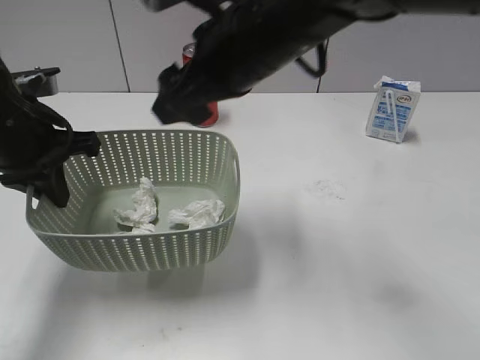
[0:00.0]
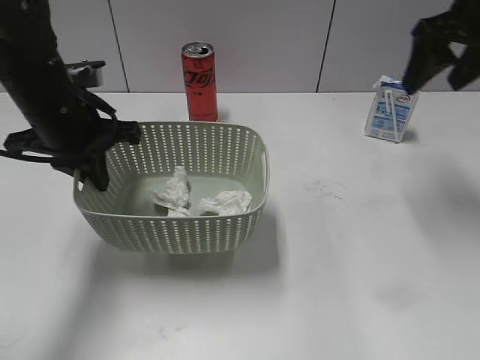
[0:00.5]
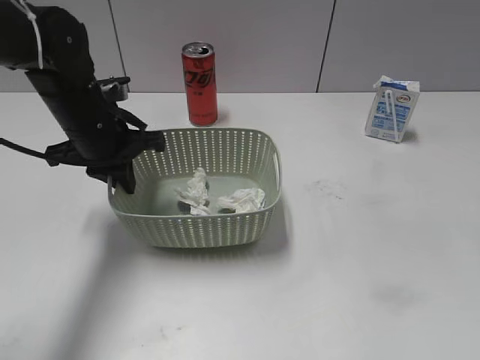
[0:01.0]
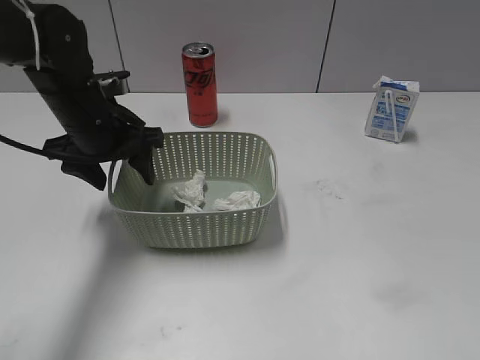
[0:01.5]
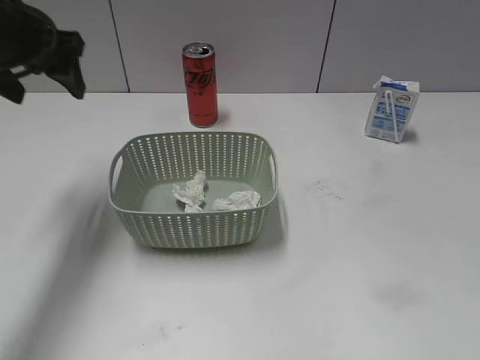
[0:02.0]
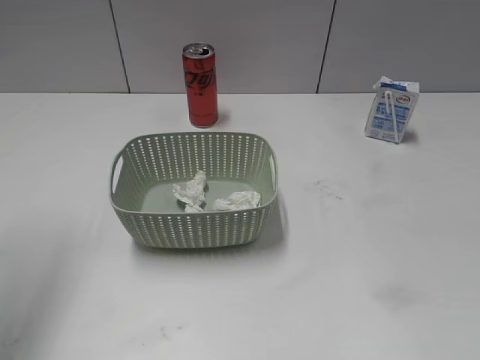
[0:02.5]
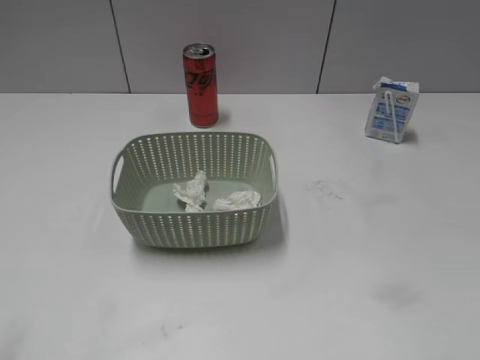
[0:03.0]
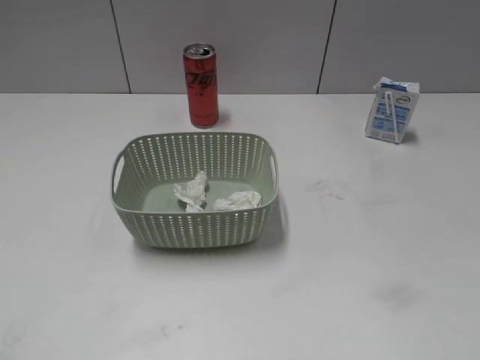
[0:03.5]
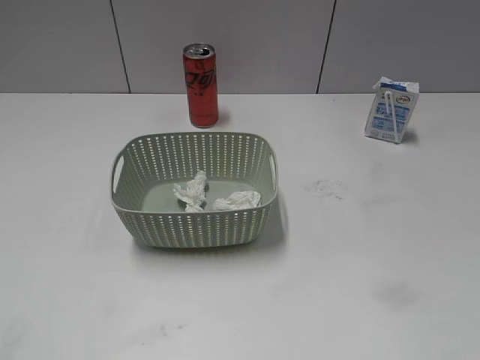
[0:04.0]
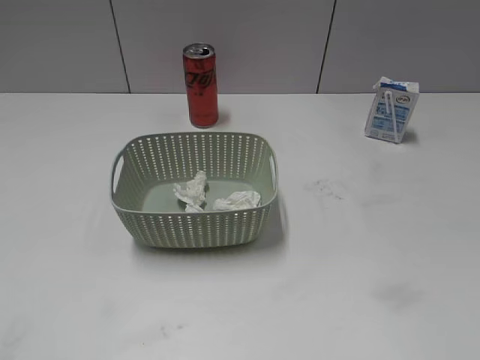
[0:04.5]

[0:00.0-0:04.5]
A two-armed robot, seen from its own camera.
Step, 0:00.5 to 0:01.5: Place the basket on the table with left gripper.
0:00.0 to 0:02.0: The left gripper heads forward and upward, covering about 10 cm, and opens. The right gripper travels to the right and backward by approximately 40 cm.
0:02.0 to 0:04.5: The left gripper is displaced backward by roughly 35 cm.

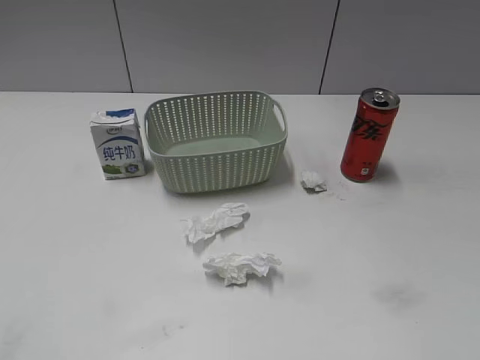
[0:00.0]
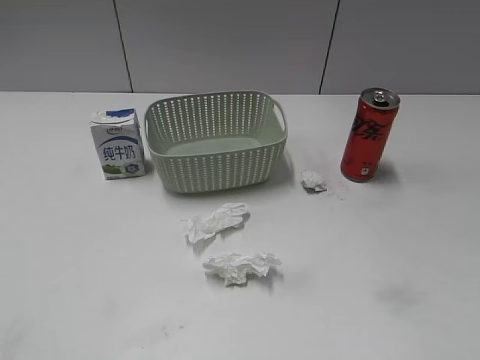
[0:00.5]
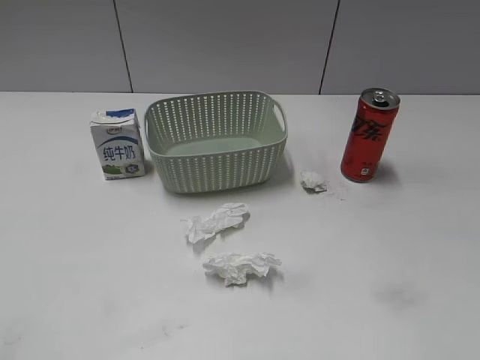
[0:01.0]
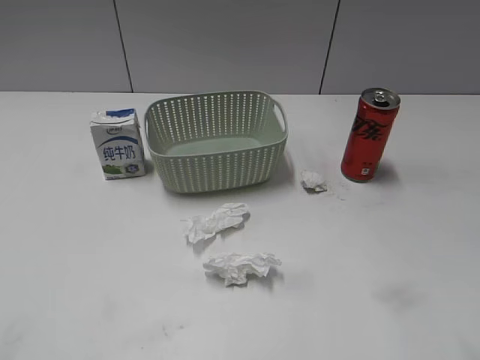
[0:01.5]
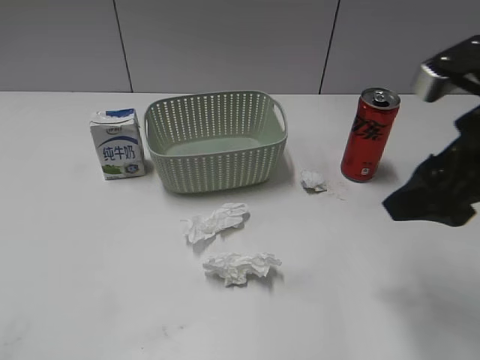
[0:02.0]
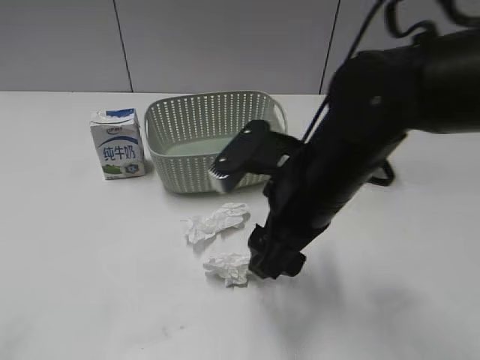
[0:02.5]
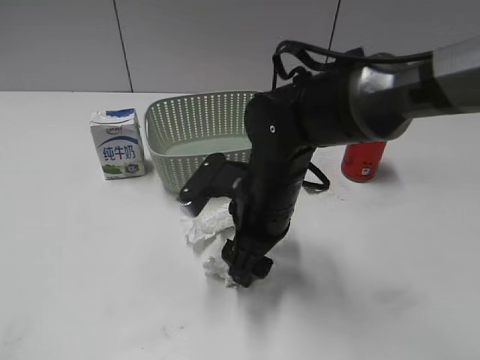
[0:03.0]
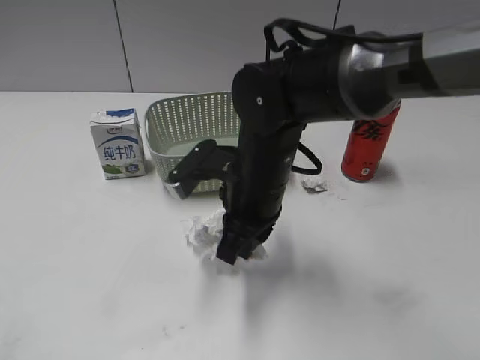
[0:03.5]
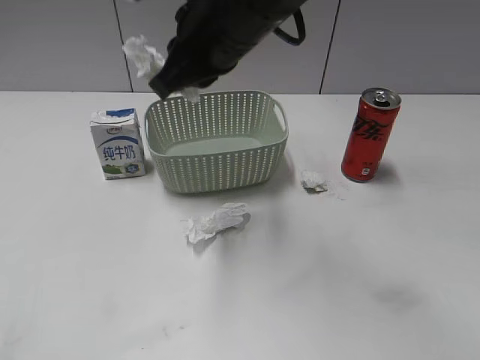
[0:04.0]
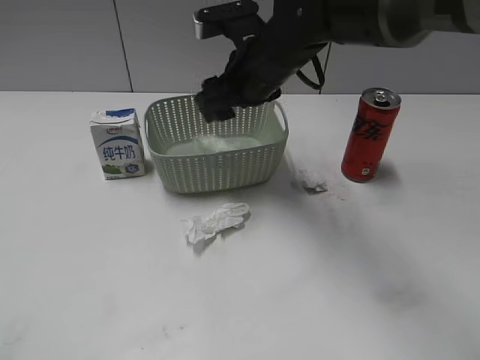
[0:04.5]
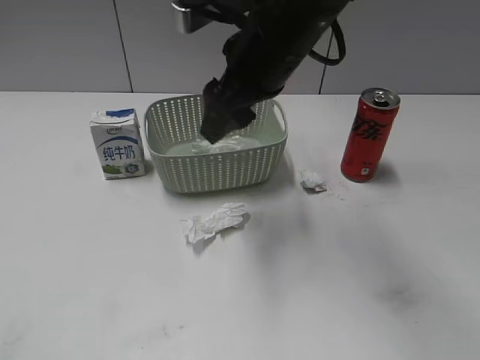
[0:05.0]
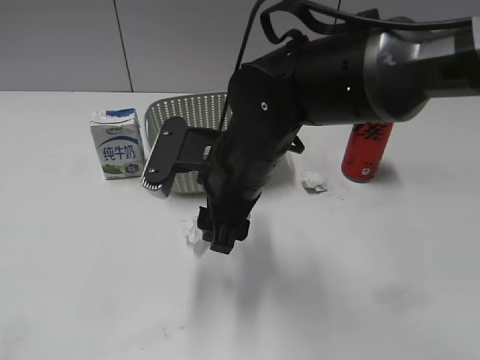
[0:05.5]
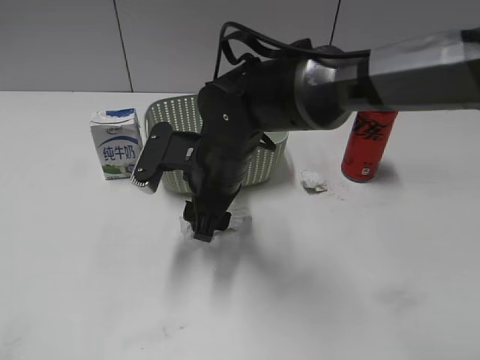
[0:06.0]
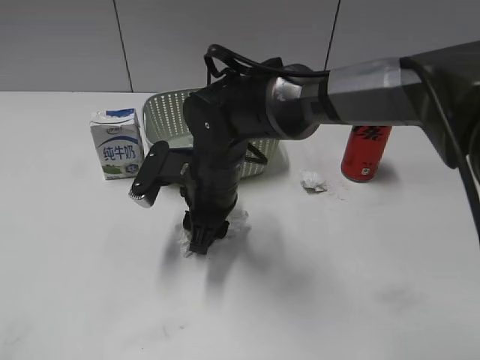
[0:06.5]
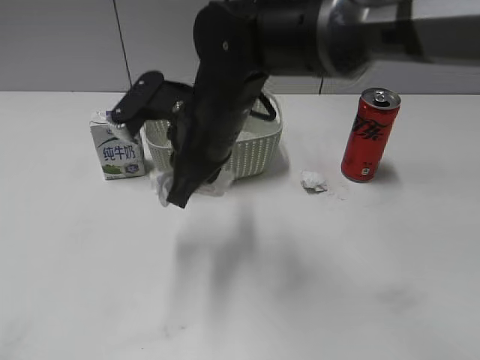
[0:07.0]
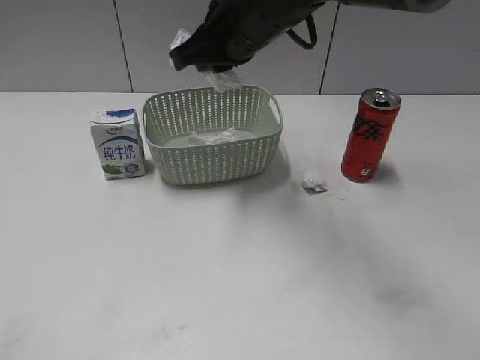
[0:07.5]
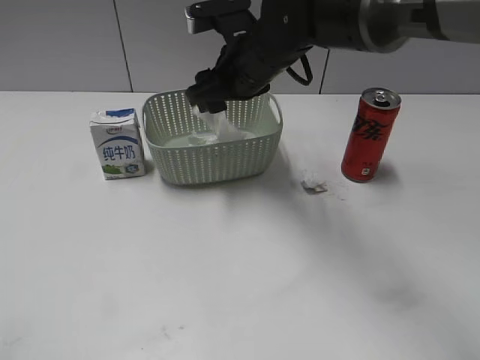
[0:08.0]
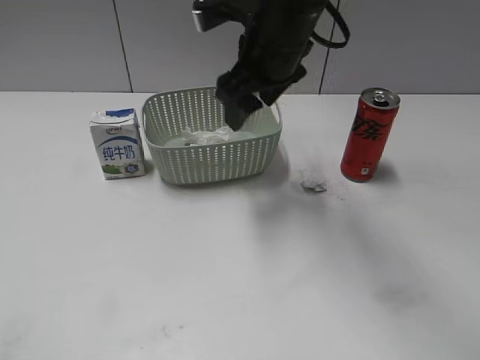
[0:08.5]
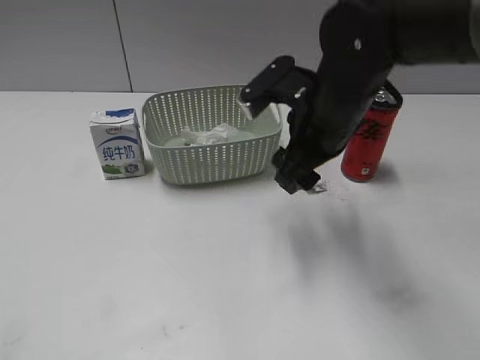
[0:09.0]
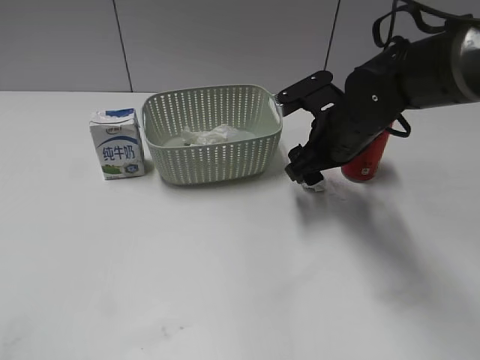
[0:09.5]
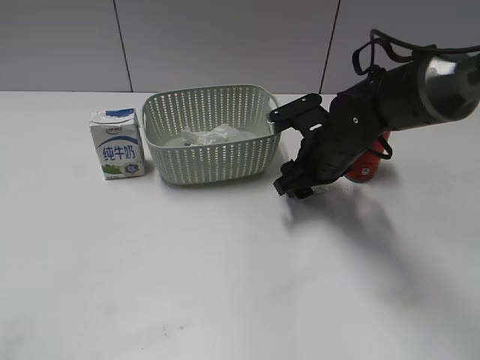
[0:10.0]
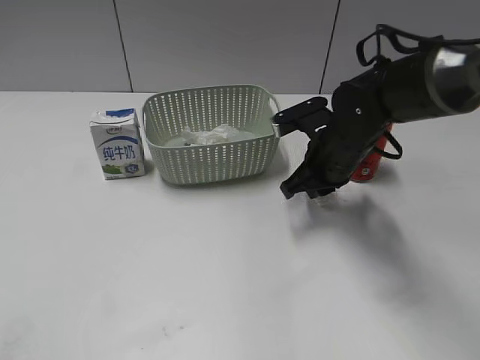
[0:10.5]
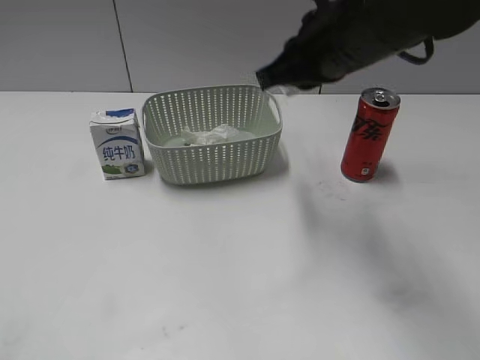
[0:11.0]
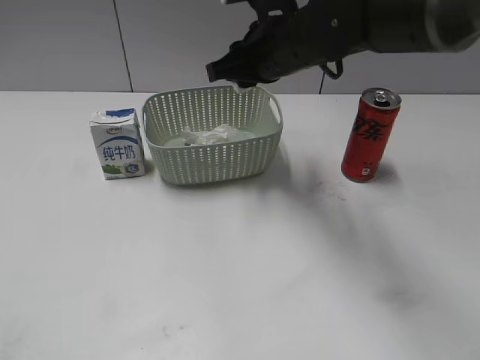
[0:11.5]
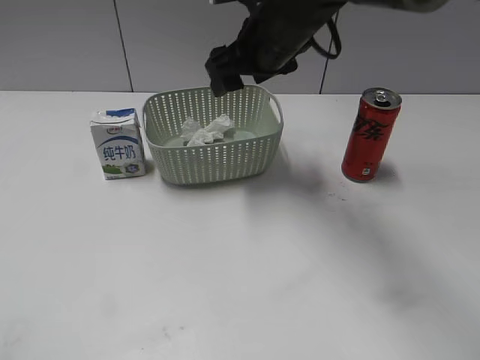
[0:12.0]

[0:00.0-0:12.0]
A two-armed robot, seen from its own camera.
Step, 0:02.0 to 0:03.5: Grasp the waste paper with right gripper.
Step, 0:04.0 to 0:04.5: Place the waste paper in the basket with right gripper.
Step, 0:05.0 to 0:06.5: Grasp the waste paper with right gripper.
Step, 0:07.0 to 0:08.0: Place the waste paper in the basket with right gripper.
Step, 0:08.5 to 0:10.5: Grasp the waste paper with right gripper.
Step, 0:11.0 to 0:11.5: Place the waste paper in the basket with right gripper.
0:02.0 to 0:04.0: The right gripper shifts roughly 25 cm to the left and forward, and closes.
0:04.0 to 0:06.0: The right gripper moves up and down over about 15 cm, changing direction 2 times, and opens up.
0:06.0 to 0:08.0: The right gripper shifts approximately 10 cm forward and upward, and closes and opens again.
0:08.0 to 0:10.0: The right gripper heads to the right and downward, covering approximately 15 cm.
0:10.0 to 0:12.0: The right gripper shifts some 15 cm upward and to the left, and closes, then reopens.

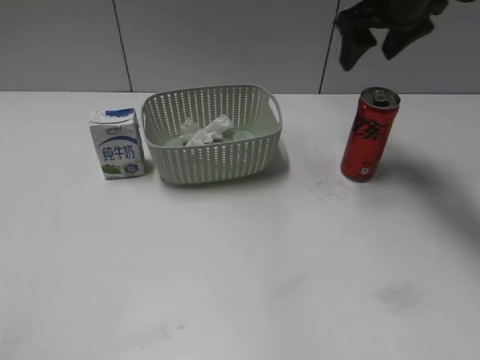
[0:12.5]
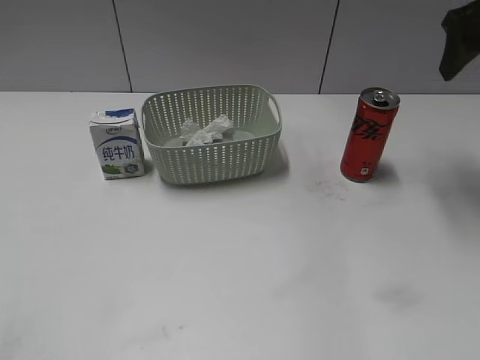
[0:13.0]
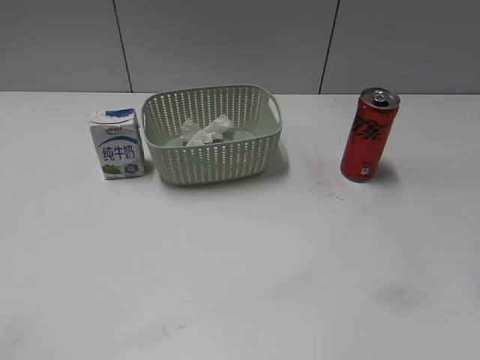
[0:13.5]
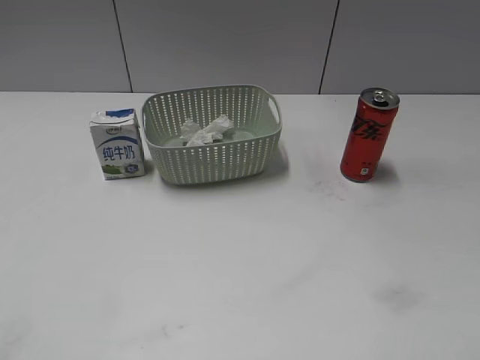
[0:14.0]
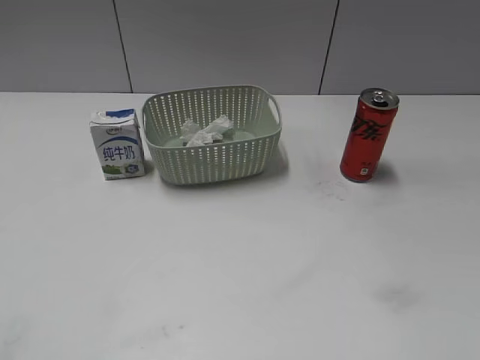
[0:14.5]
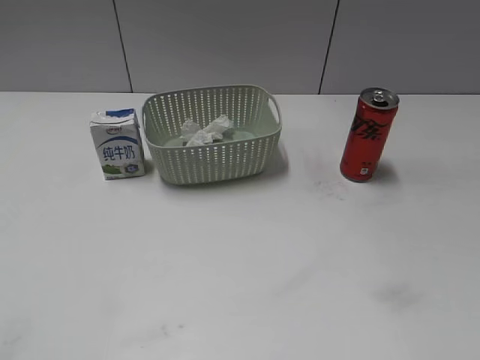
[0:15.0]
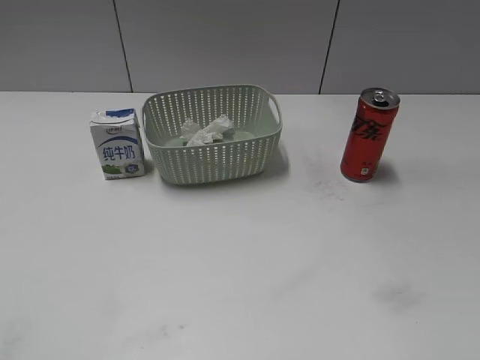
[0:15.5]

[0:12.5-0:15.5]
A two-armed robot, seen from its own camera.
0:12.5 to 0:14.0: The right gripper goes roughly 35 cm backward.

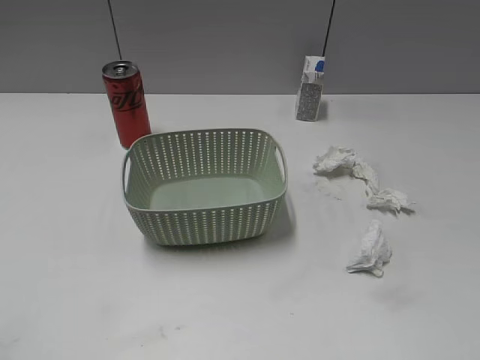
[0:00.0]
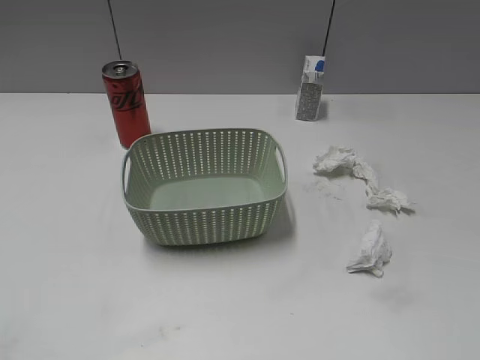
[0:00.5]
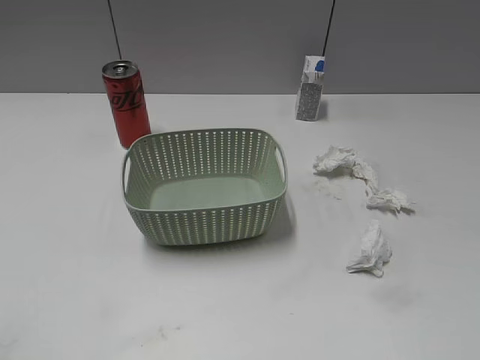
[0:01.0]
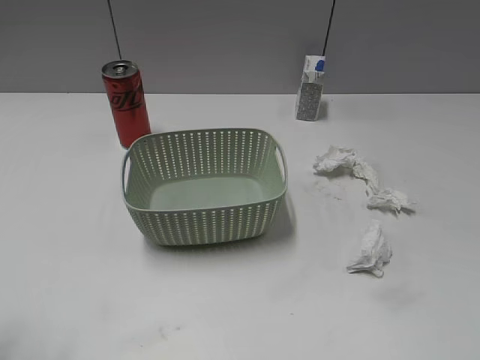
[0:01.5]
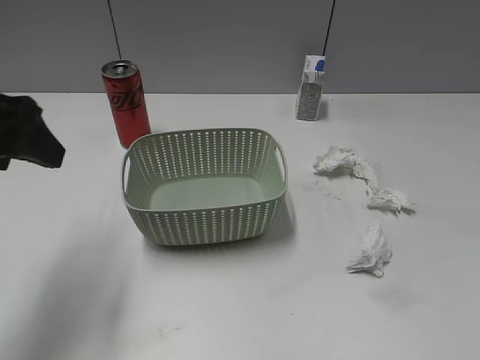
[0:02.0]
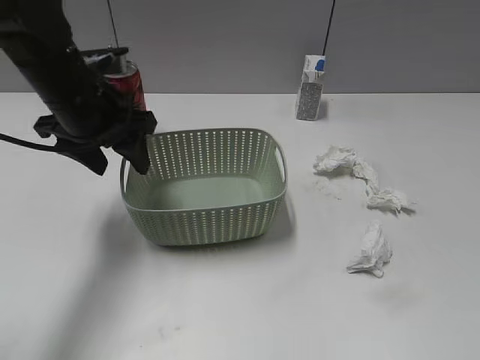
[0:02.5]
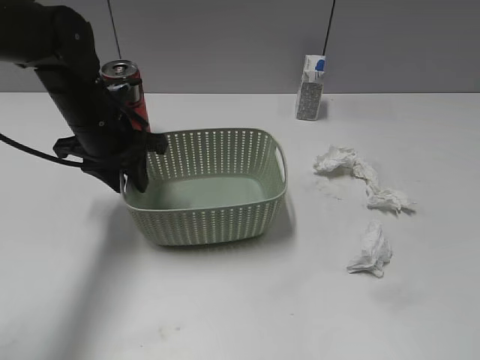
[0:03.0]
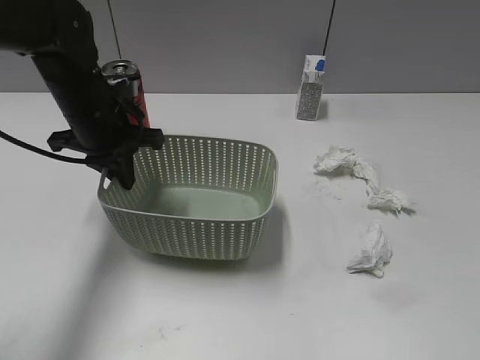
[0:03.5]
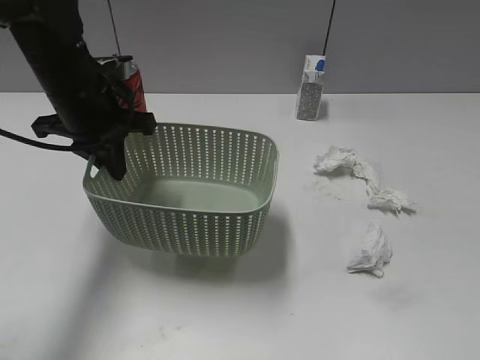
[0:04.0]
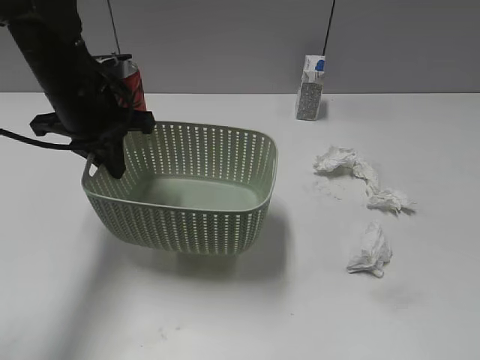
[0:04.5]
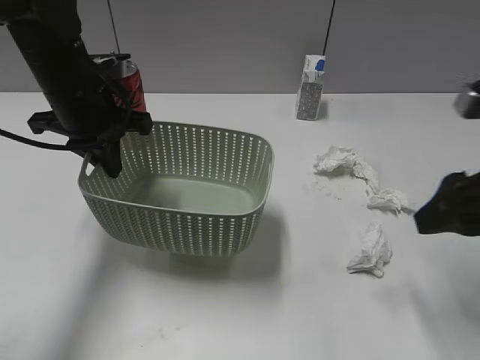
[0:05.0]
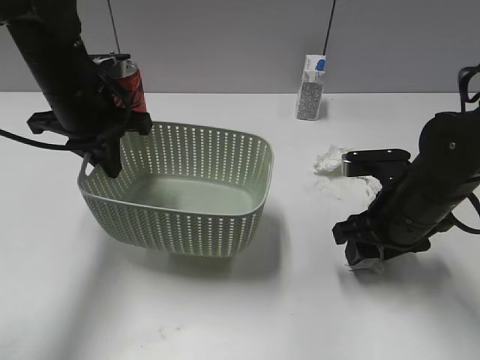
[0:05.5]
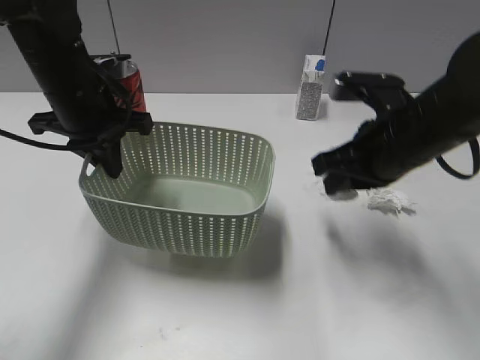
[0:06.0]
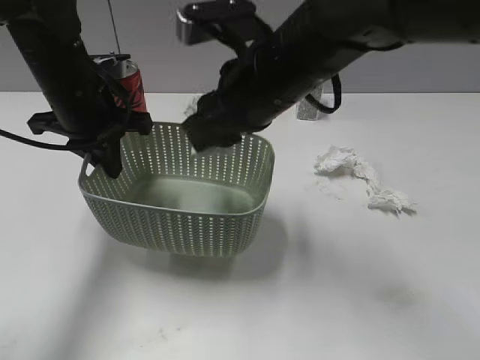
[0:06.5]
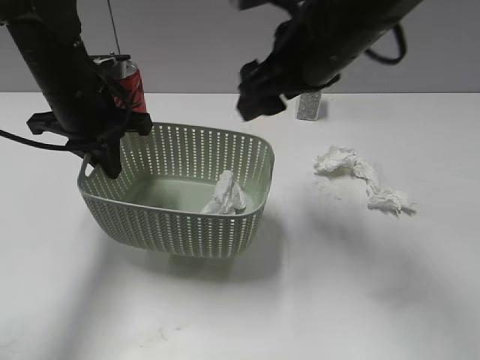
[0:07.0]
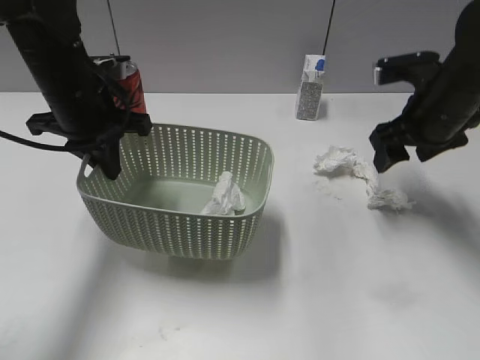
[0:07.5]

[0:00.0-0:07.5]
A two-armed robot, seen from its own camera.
Step, 0:02.0 to 0:03.0: Grasp the basket with left gripper.
Step, 0:03.5 to 0:04.0: Lift the basket with left gripper.
Step, 0:04.5 to 0:06.0: Grasp the waste paper with right gripper.
Step, 0:06.5 to 0:07.0: Place the waste paper in the basket with right gripper.
0:02.0 to 0:04.0: The left gripper heads forward, downward and to the right, covering roughly 20 cm, and closes.
0:04.0 to 0:05.5: The right gripper travels forward, downward and to the left by approximately 35 cm.
0:05.5 to 0:07.5: The right gripper shifts about 15 cm forward and upward, moves about 15 cm to the left and comes back, and closes, then reopens.
